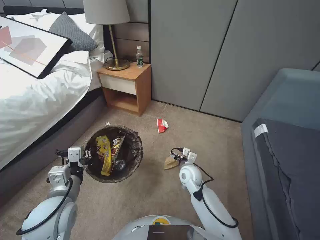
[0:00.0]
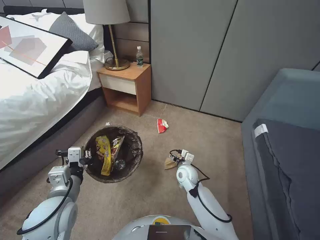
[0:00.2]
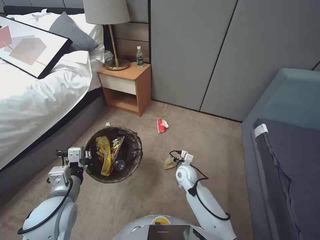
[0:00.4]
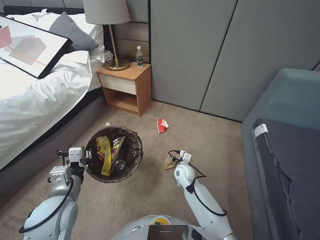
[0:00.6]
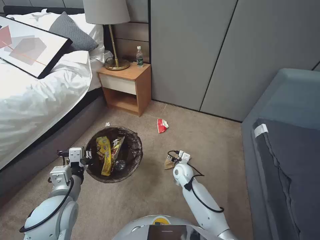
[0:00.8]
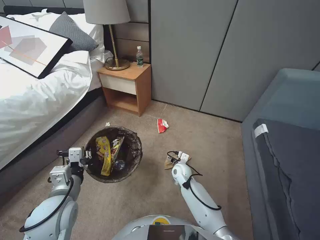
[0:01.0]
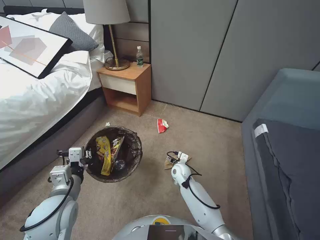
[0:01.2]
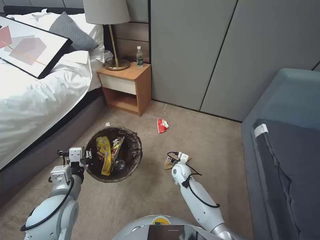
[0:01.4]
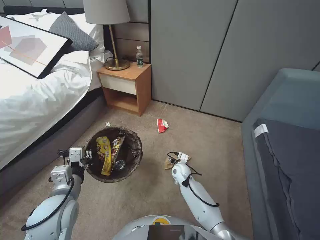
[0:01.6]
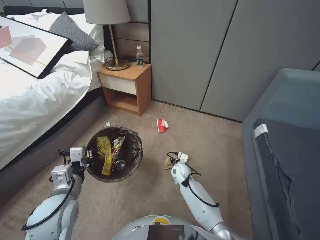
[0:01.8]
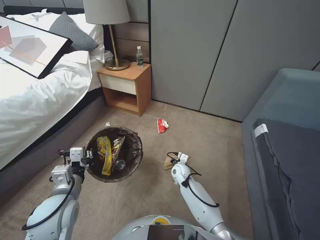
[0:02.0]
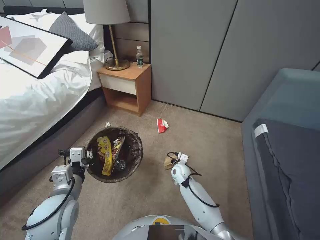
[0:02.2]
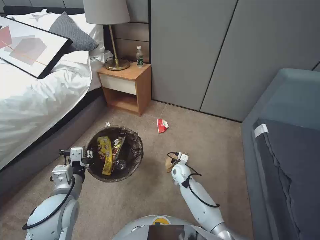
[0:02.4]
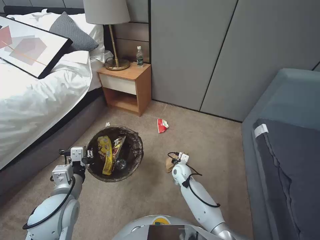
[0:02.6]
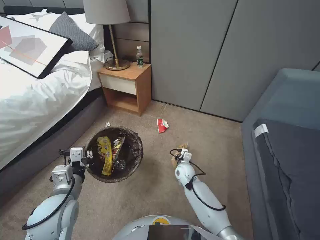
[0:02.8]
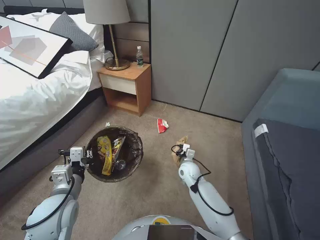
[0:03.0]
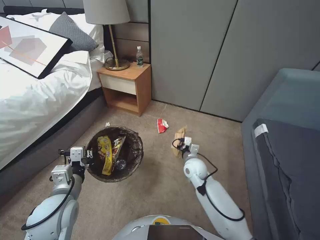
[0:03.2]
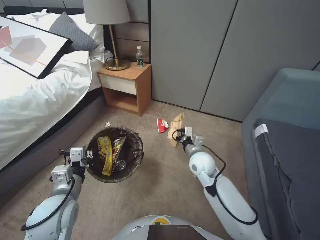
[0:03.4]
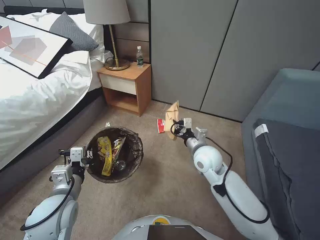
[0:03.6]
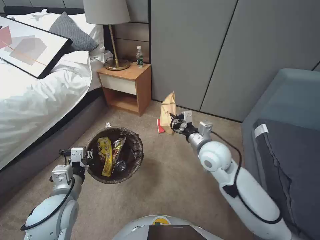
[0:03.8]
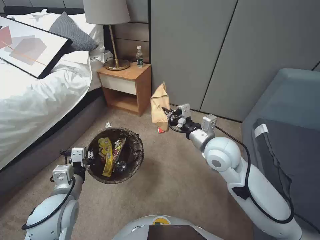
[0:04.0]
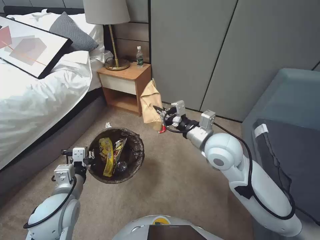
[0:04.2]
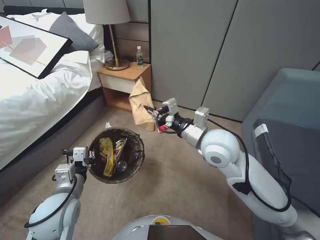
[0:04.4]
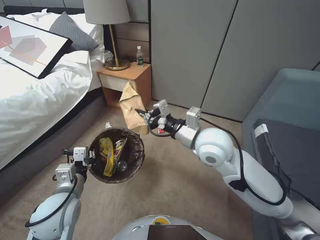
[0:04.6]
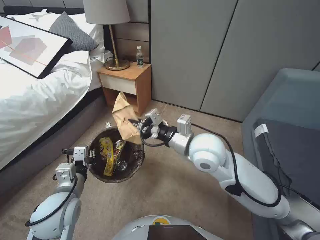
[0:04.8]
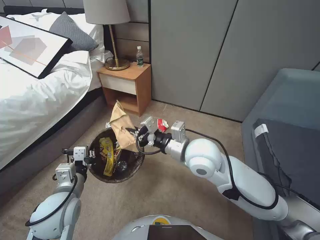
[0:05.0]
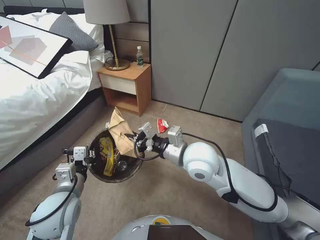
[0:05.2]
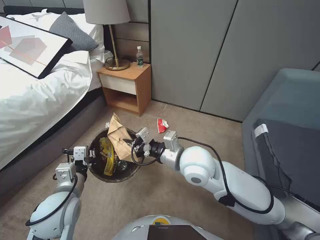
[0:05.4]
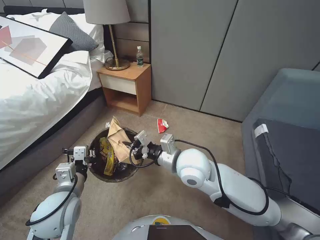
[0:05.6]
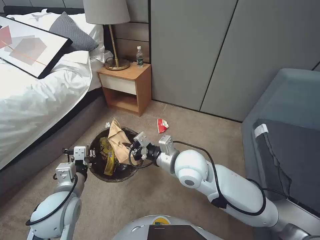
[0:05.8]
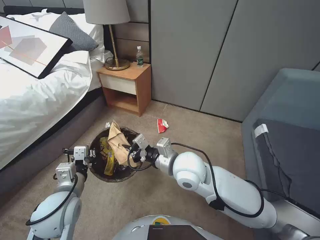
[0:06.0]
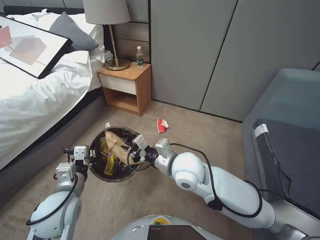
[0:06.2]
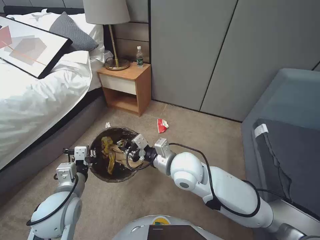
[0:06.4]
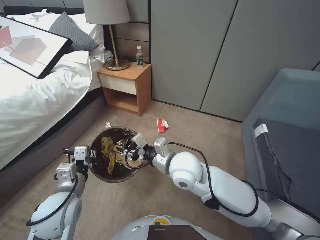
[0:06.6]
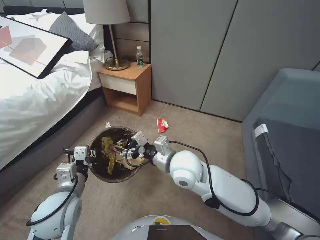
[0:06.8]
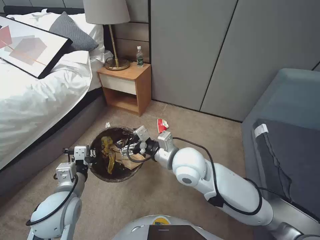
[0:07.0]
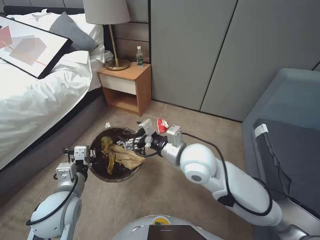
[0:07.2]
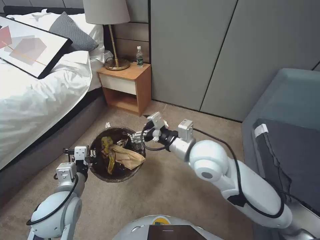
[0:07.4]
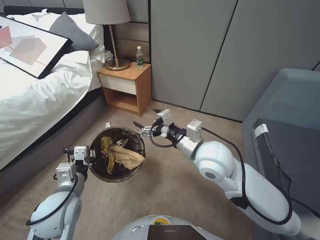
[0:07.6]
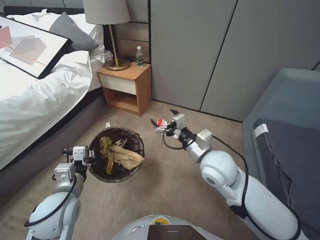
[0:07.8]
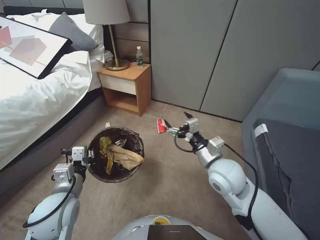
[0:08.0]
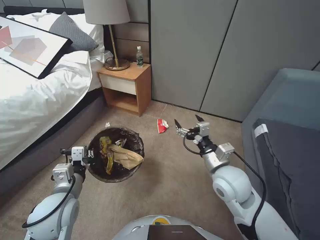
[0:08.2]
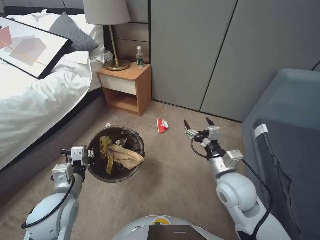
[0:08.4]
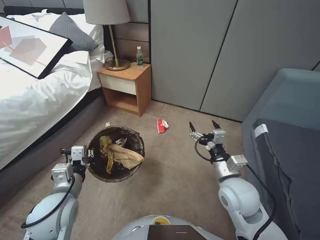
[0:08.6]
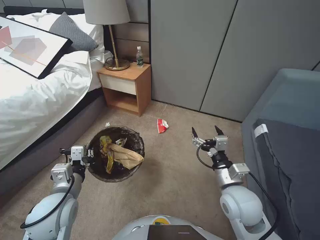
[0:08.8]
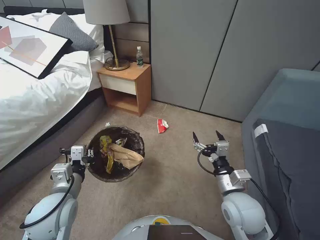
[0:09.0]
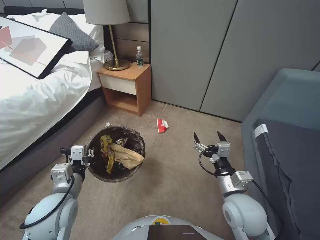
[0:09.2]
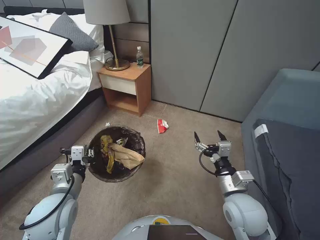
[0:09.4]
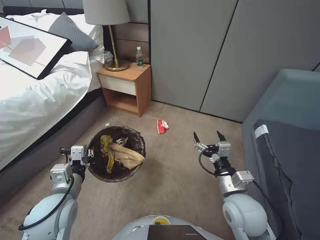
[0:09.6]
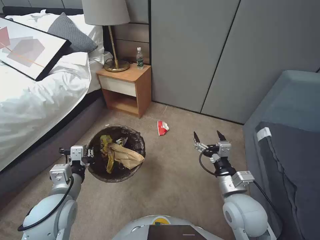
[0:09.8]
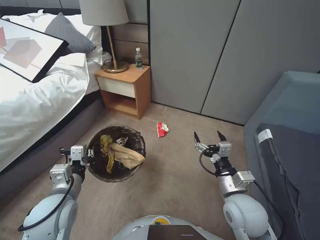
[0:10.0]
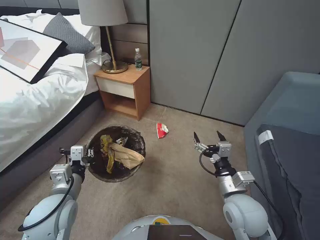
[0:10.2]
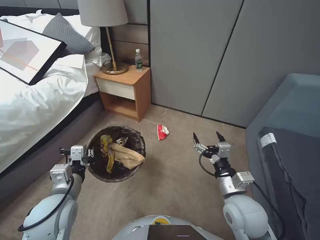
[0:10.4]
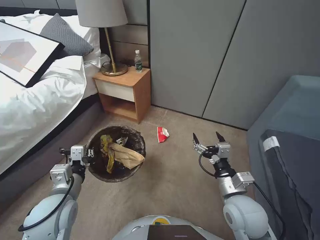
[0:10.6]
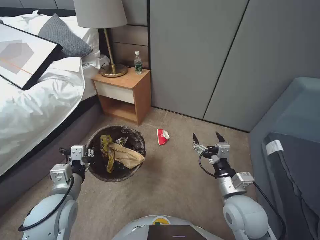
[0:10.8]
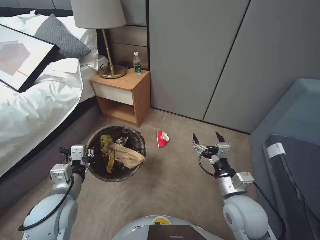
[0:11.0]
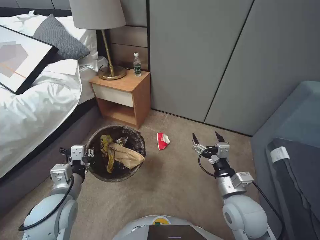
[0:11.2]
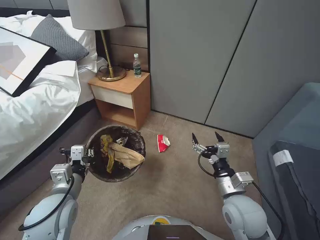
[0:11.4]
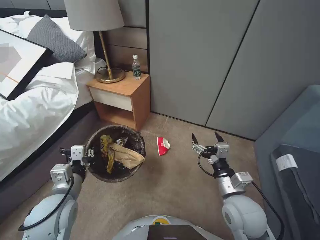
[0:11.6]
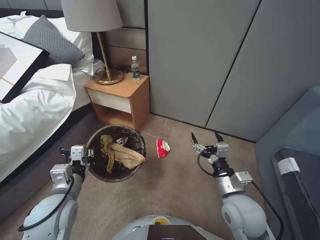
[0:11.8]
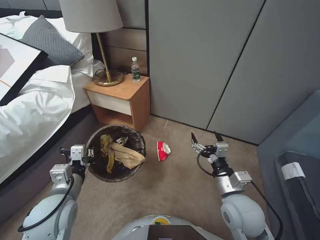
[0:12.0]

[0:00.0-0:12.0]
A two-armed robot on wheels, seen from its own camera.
Task of the whole recording: Pick up the trash bin, then pick up the garbage from the floor and place it into the trash bin.
0:00.0 to 0:01.6: The right gripper moves downward, roughly 10 cm.
0:01.6 to 0:03.0: The right gripper closes up.
0:03.0 to 0:04.4: The right gripper is displaced upward by approximately 35 cm.
0:04.4 to 0:06.0: The right gripper goes about 10 cm to the left and downward.
0:06.0 to 0:07.6: The right gripper heads upward, covering some 5 cm, and opens.
0:07.6 to 0:09.0: The right gripper shifts about 20 cm downward, to the right and backward.
0:09.0 to 0:10.4: Both grippers stay about where they are.

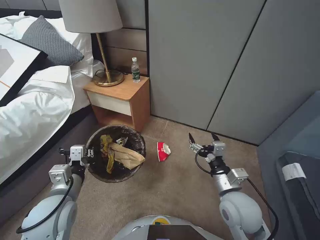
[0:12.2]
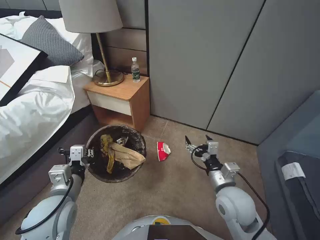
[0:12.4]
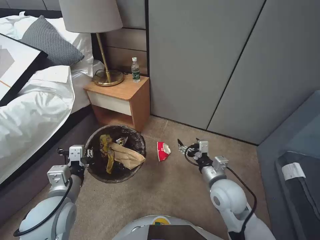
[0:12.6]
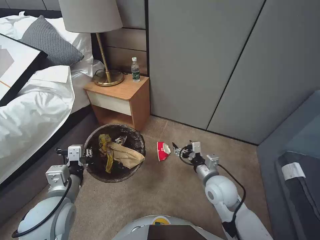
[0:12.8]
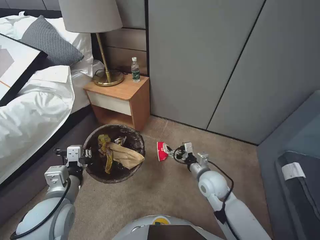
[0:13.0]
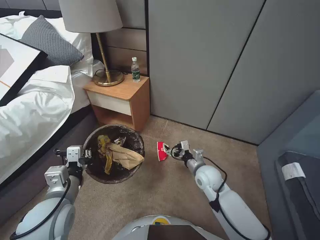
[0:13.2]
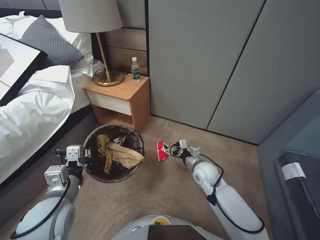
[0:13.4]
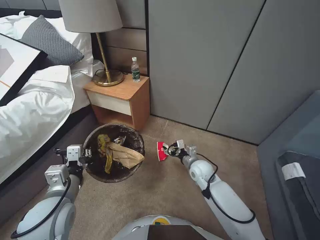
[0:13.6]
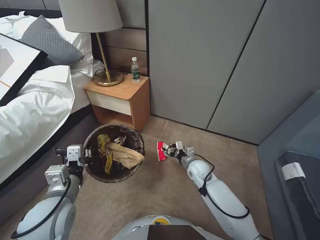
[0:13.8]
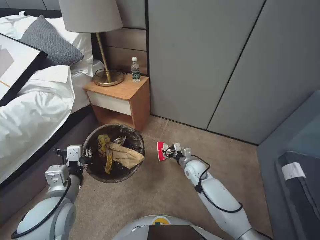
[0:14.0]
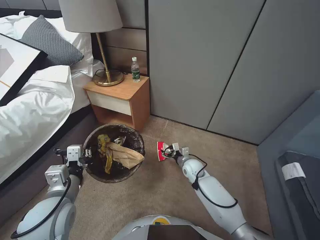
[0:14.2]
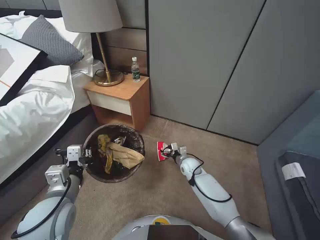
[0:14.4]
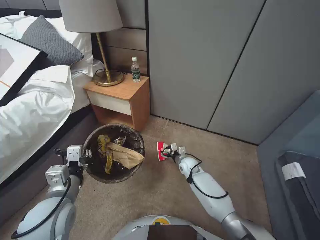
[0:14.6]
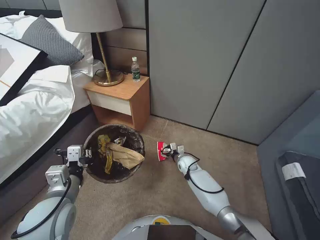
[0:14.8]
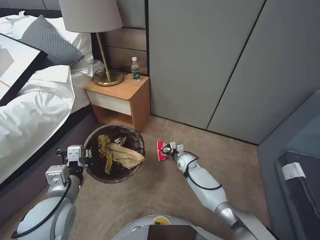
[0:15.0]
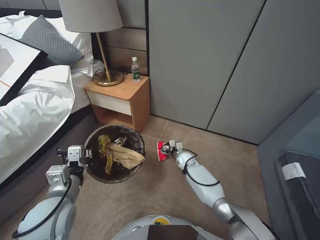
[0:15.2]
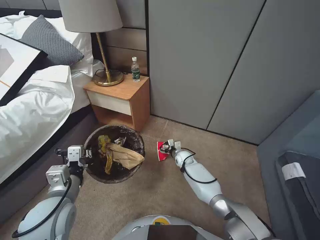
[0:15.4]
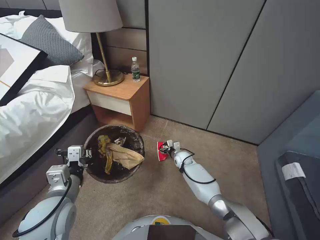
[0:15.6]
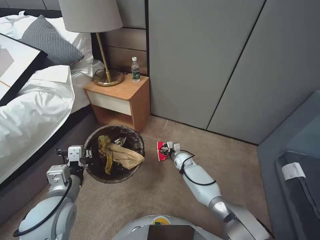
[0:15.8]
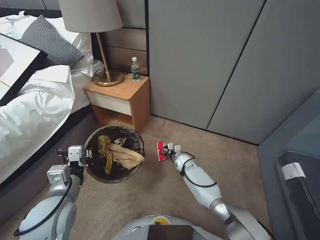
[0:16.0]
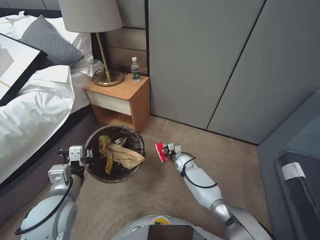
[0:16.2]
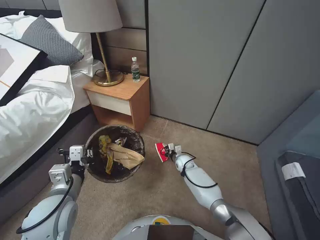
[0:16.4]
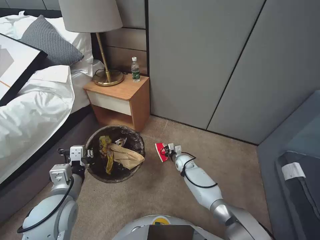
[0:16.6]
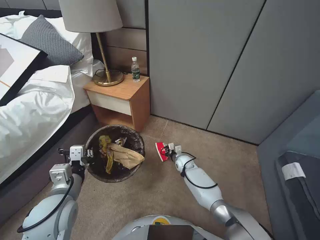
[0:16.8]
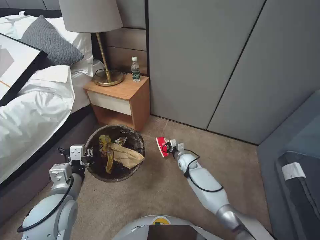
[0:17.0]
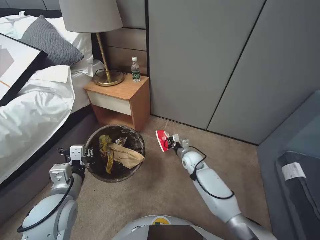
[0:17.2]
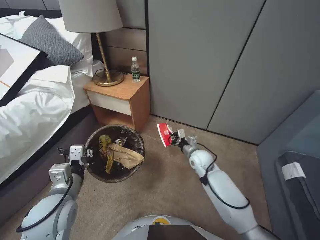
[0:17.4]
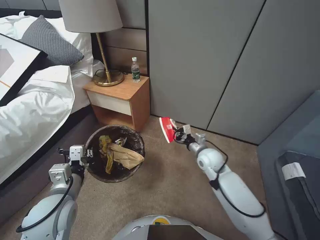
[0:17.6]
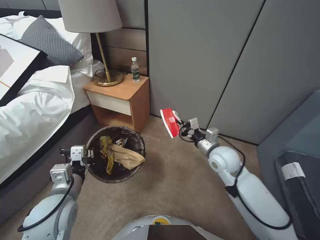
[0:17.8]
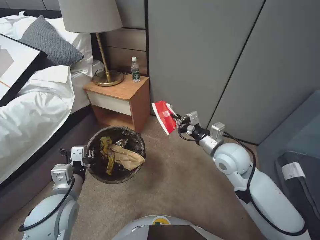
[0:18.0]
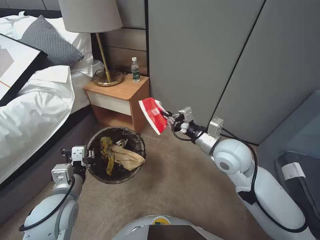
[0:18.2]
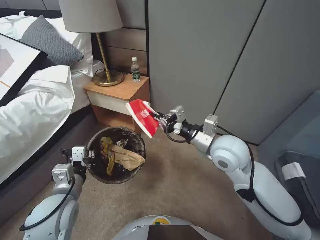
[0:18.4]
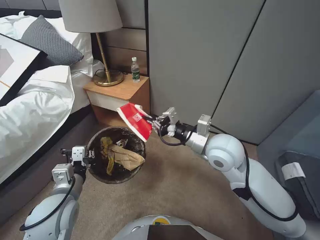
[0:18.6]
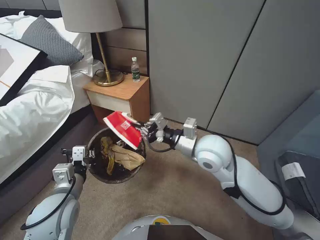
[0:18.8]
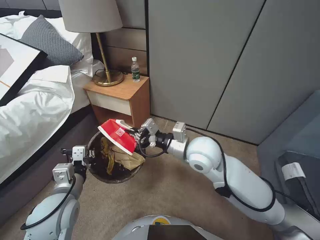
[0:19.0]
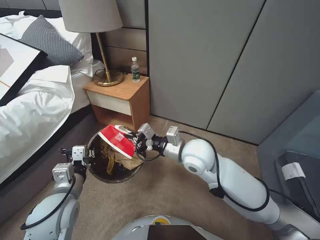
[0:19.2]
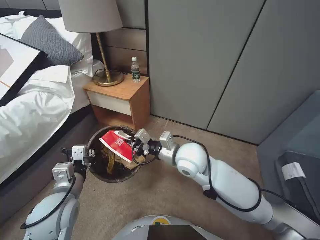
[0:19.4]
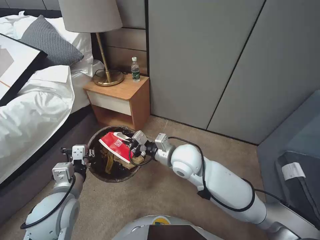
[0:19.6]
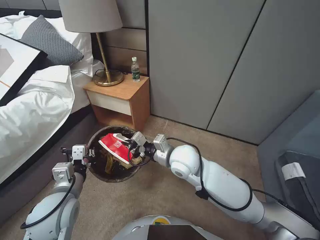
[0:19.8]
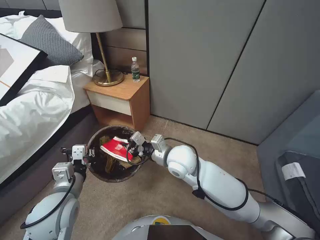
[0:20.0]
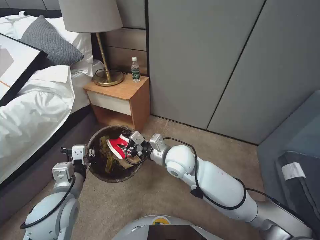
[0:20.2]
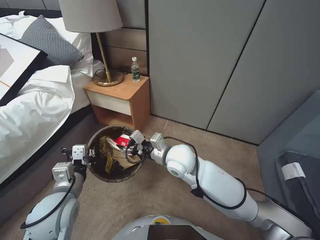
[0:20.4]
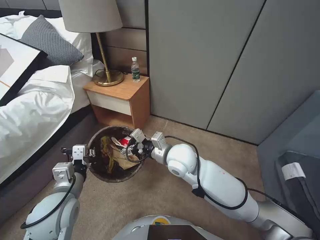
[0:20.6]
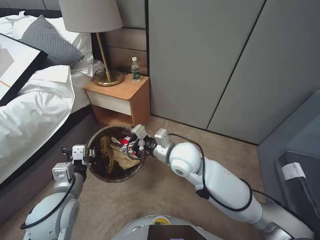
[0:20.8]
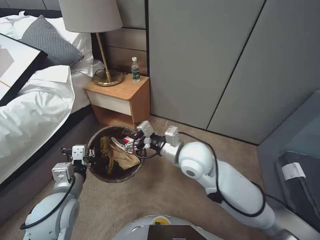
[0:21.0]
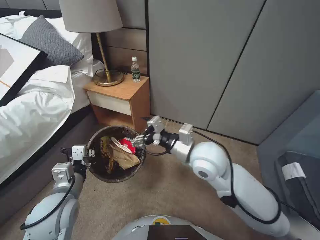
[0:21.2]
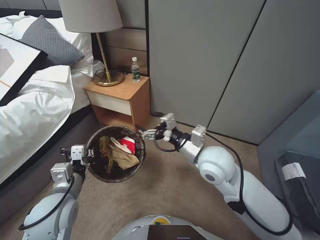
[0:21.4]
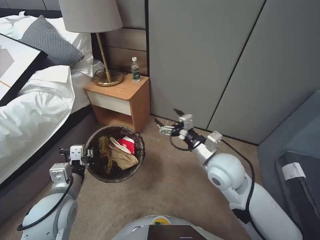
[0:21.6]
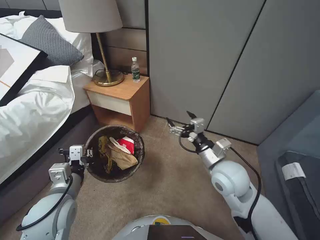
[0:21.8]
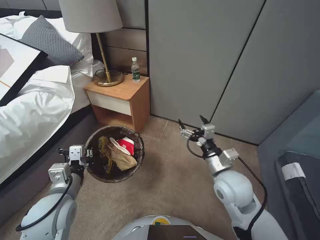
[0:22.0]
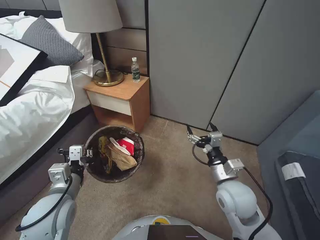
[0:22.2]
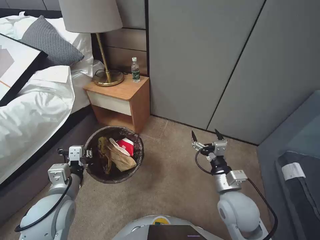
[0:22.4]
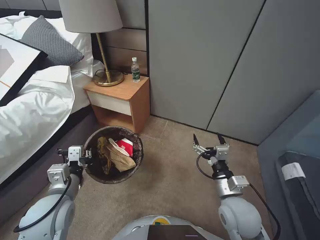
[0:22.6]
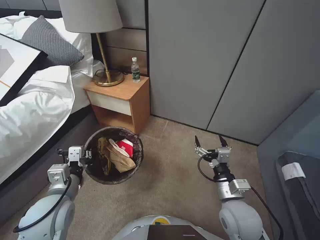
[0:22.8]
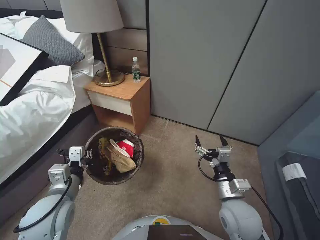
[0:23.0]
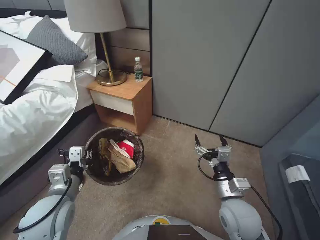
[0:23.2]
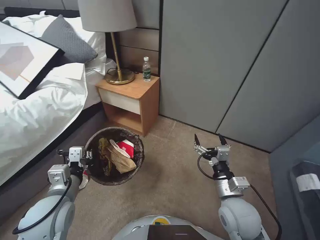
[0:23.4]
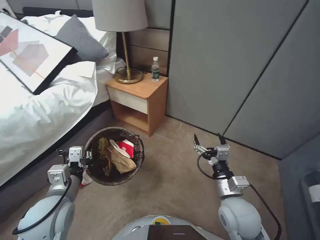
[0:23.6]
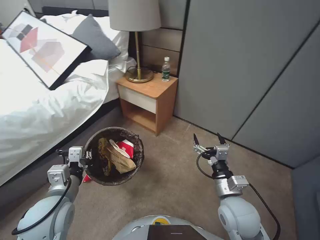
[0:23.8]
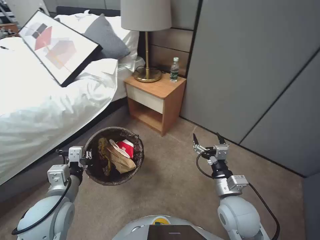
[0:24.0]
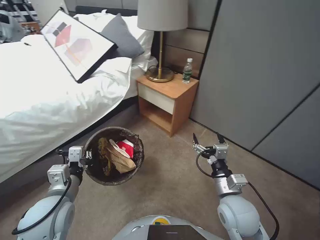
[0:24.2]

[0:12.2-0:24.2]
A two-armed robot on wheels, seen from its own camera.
Task of the whole recording: Pick up the trash bin, then pick up the garbage from the floor and place it into the trash bin.
0:12.2 to 0:13.8: The right gripper goes some 20 cm forward and downward.
0:13.8 to 0:15.2: The right gripper heads downward and forward, covering approximately 15 cm.
0:15.2 to 0:16.6: The right gripper closes up.
0:16.6 to 0:18.2: The right gripper is displaced upward and backward by some 35 cm.
0:18.2 to 0:19.8: The right gripper goes some 15 cm to the left.
0:19.8 to 0:21.2: The right gripper shifts some 5 cm upward, and opens up.
0:21.2 to 0:22.6: The right gripper heads downward, to the right and backward, covering about 20 cm.
